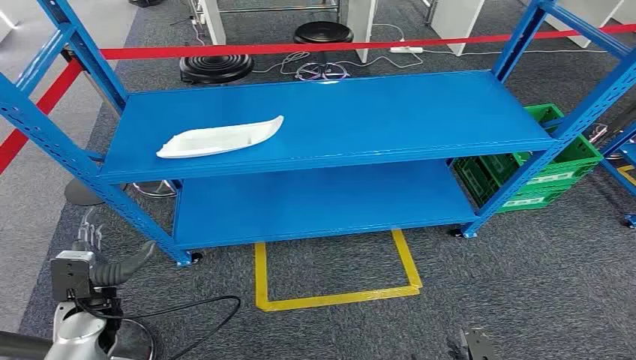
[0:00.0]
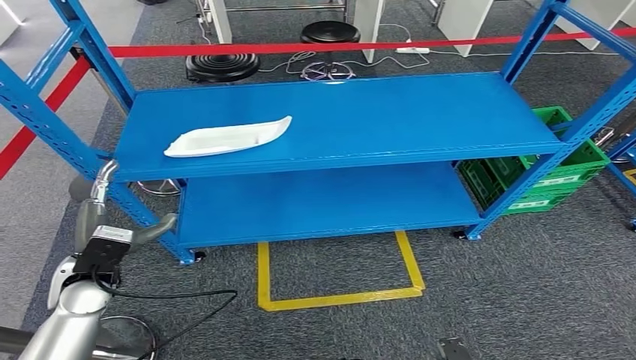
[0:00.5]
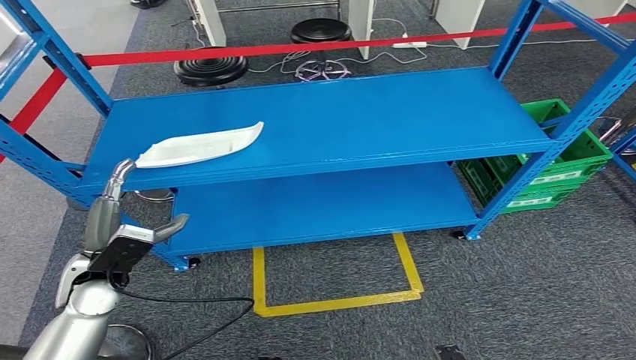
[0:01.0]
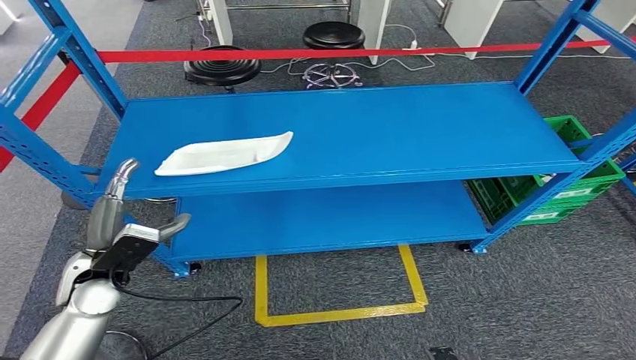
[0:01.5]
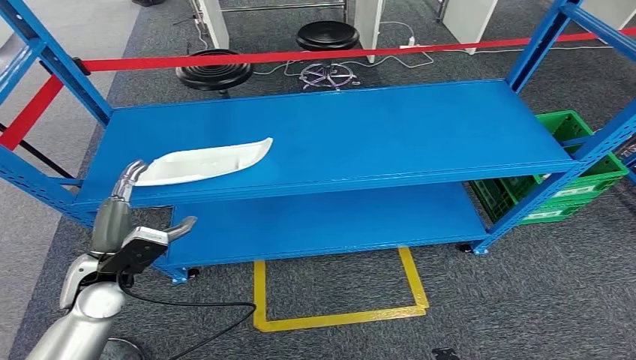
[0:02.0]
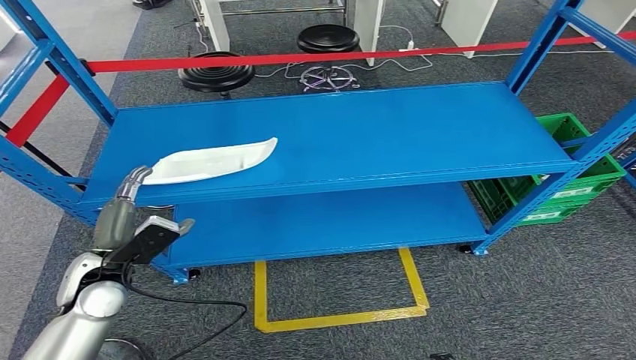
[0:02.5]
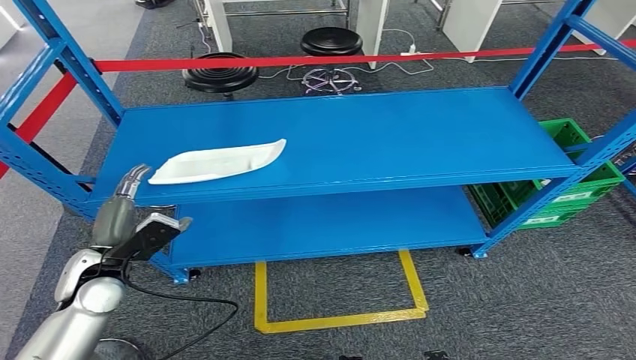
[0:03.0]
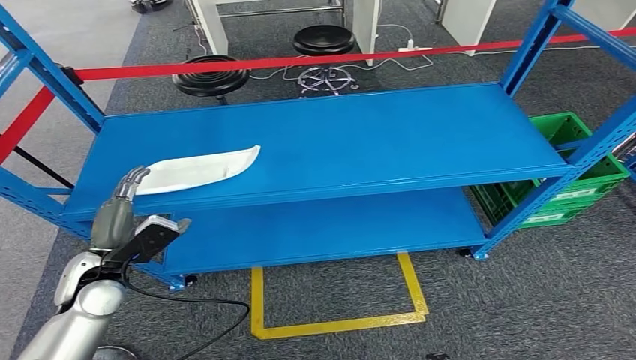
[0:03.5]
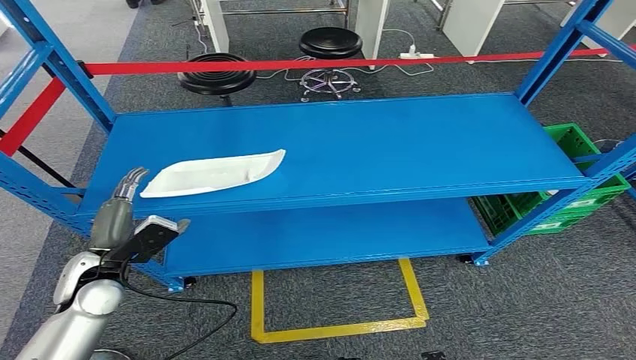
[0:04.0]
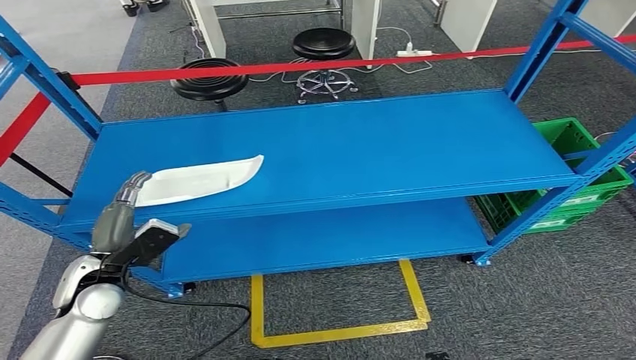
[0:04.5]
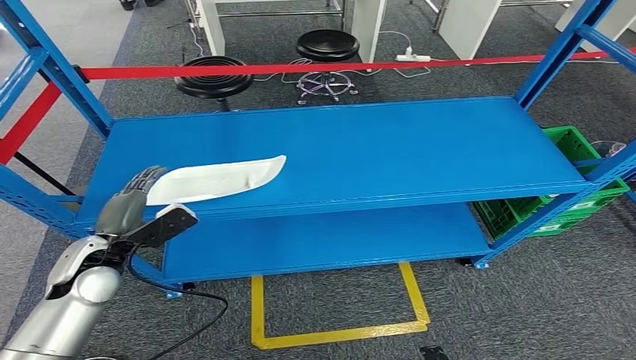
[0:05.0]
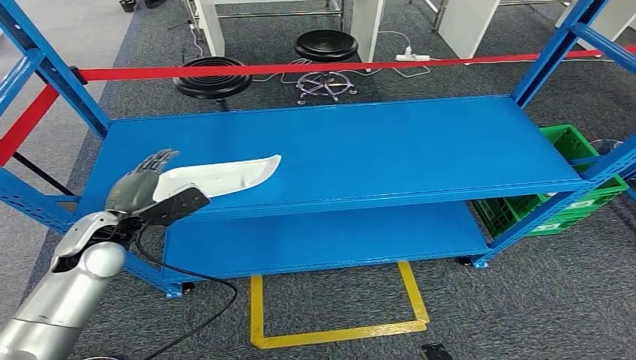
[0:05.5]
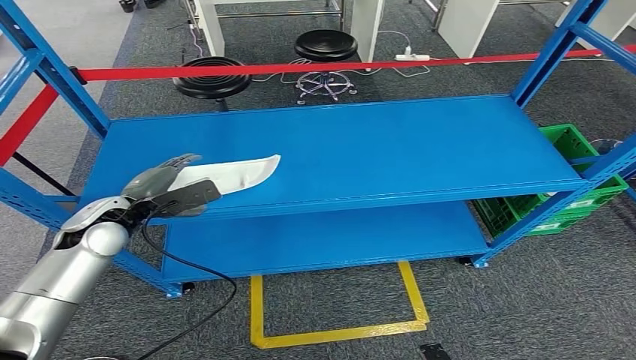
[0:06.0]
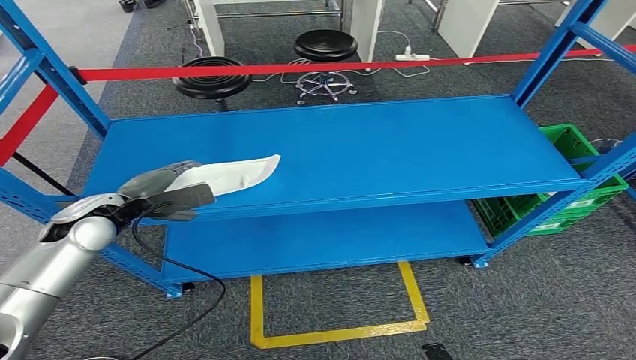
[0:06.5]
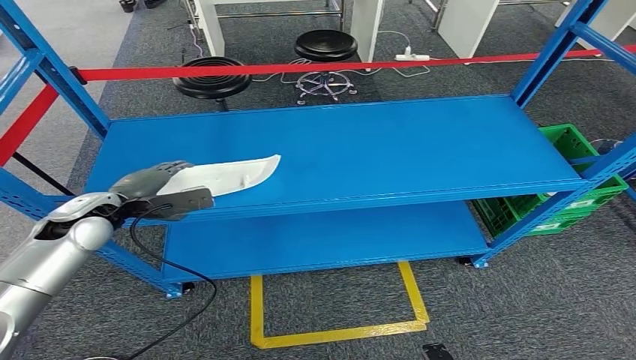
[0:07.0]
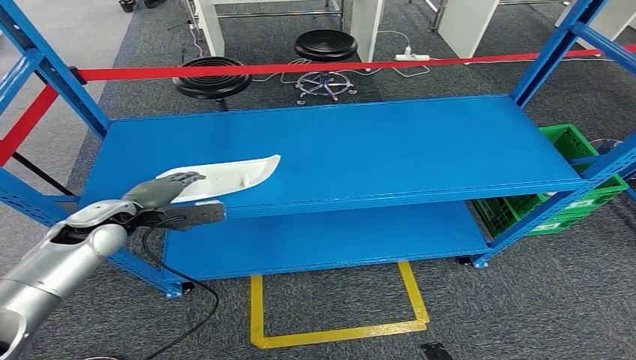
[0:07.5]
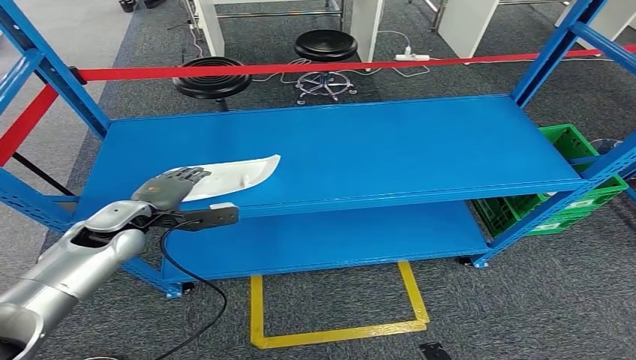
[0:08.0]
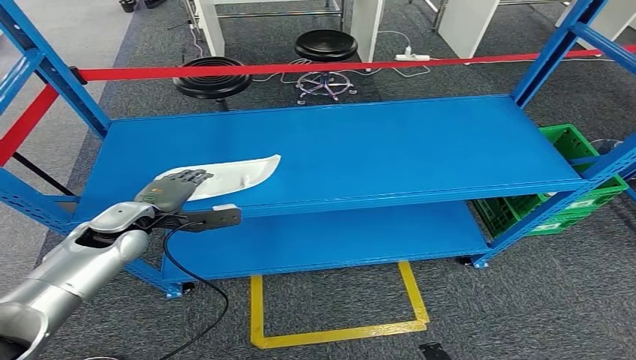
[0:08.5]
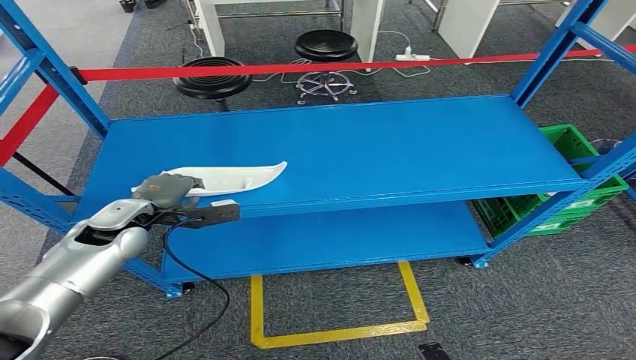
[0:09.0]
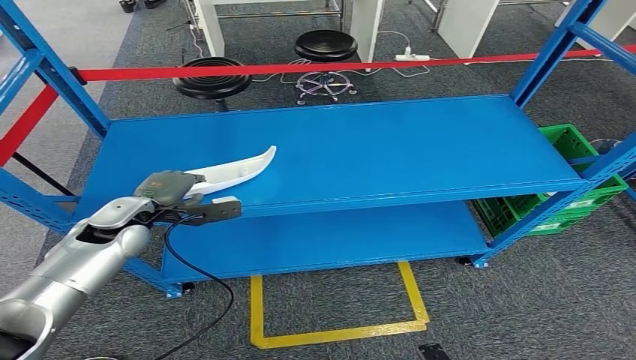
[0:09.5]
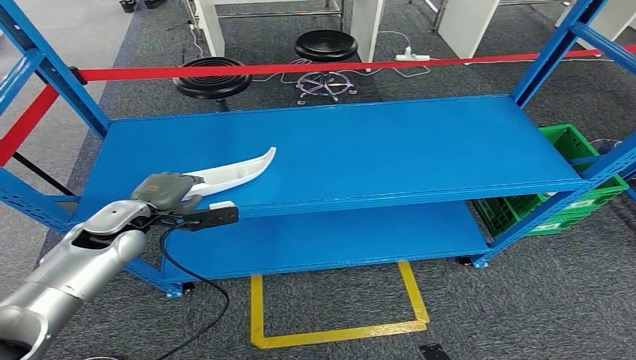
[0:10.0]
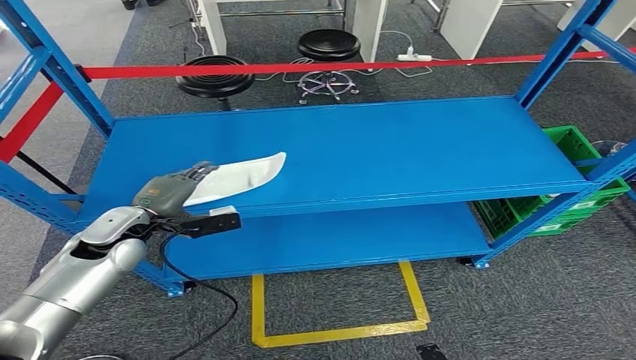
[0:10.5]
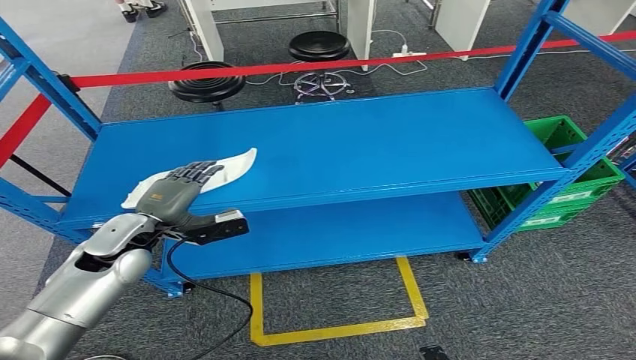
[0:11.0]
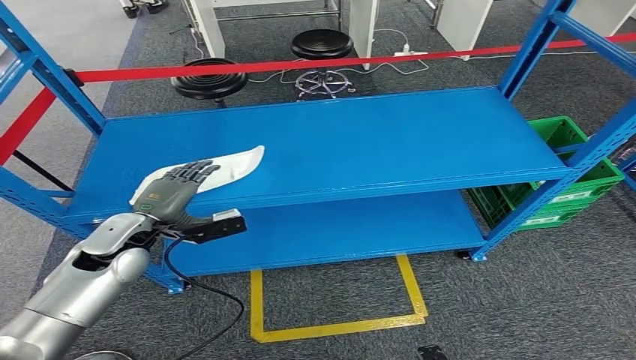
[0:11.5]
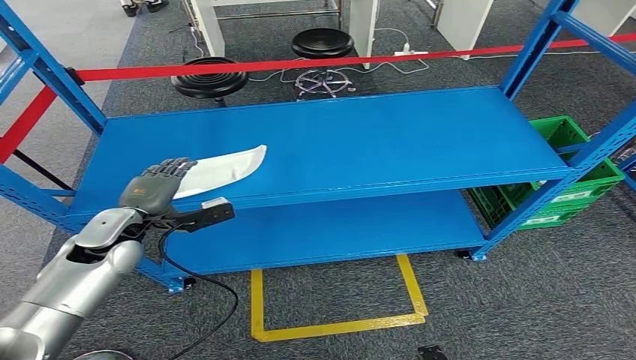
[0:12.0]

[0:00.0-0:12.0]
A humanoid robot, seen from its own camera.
0:08.0 to 0:10.0: The hands move only a little.

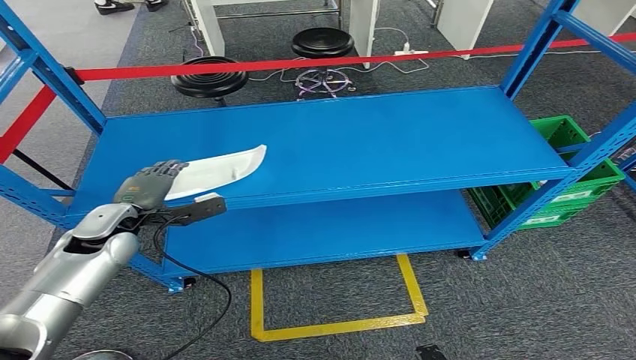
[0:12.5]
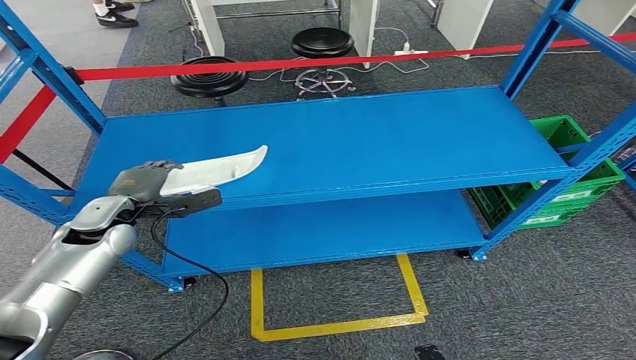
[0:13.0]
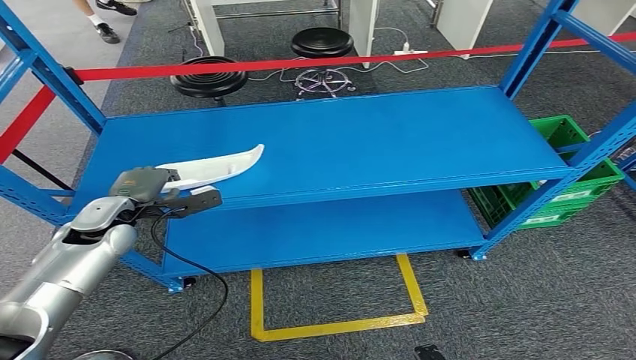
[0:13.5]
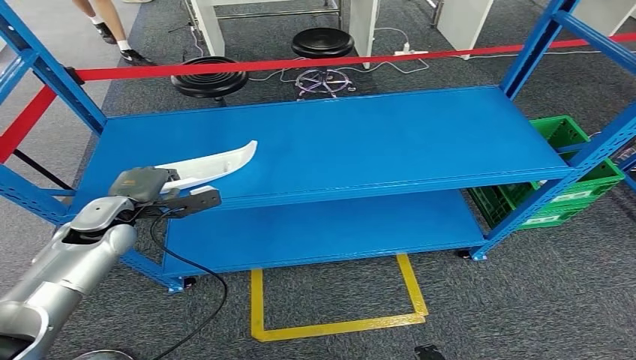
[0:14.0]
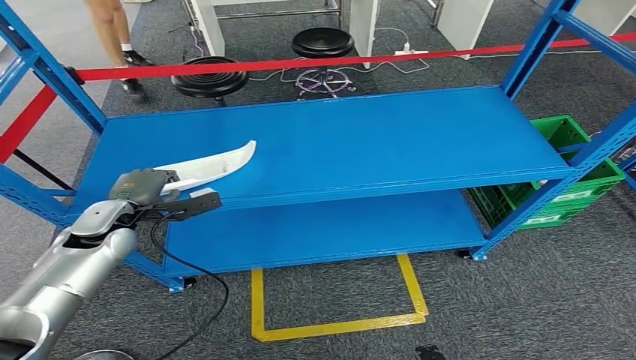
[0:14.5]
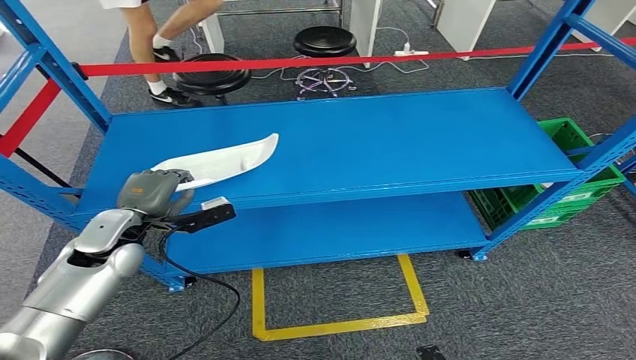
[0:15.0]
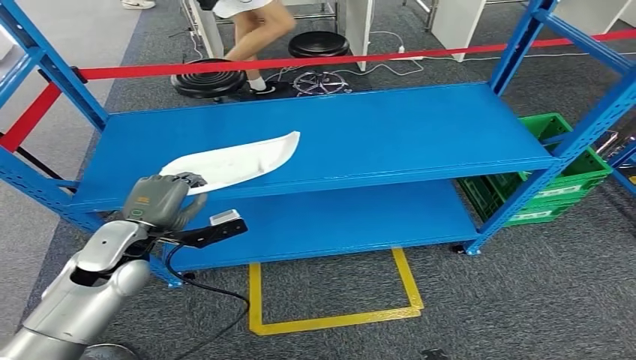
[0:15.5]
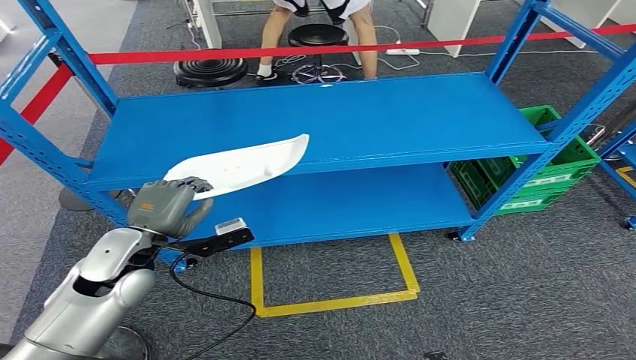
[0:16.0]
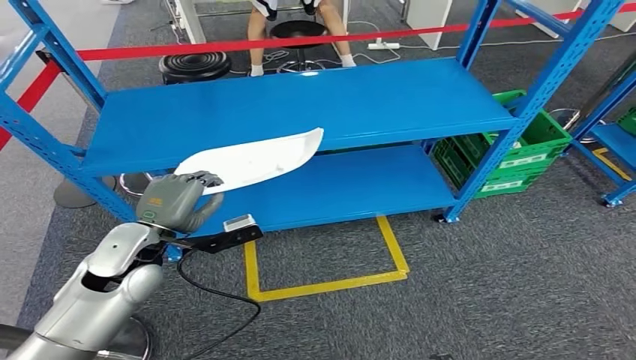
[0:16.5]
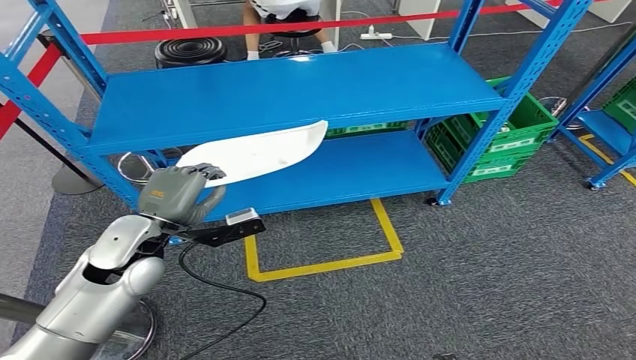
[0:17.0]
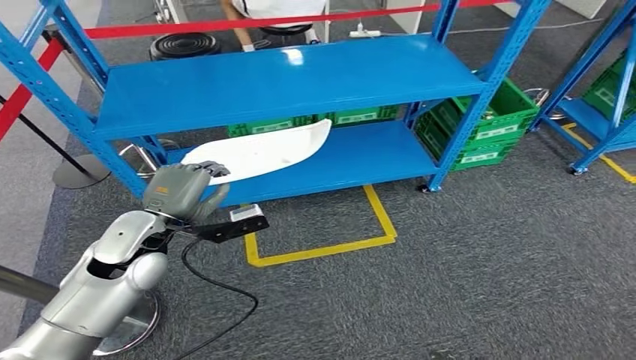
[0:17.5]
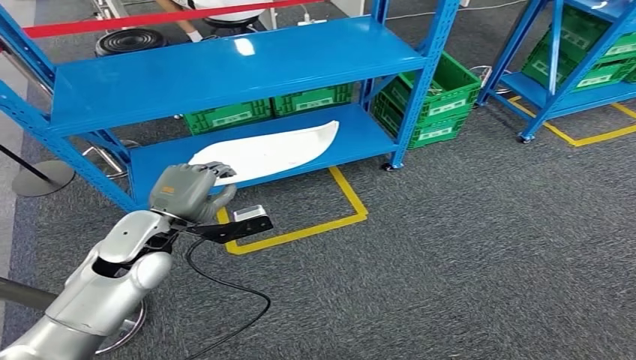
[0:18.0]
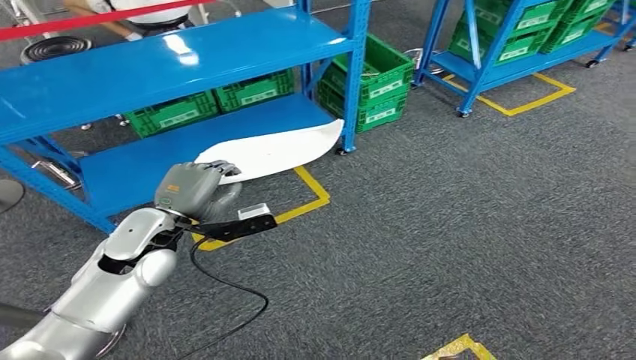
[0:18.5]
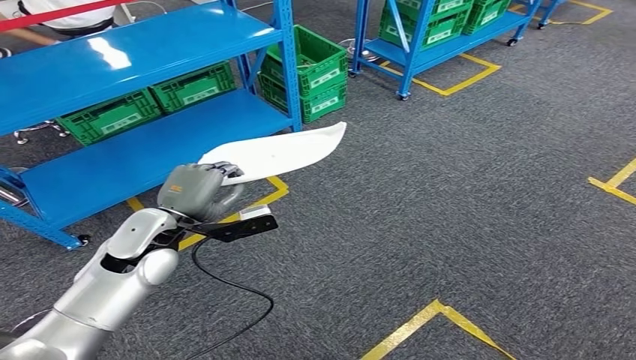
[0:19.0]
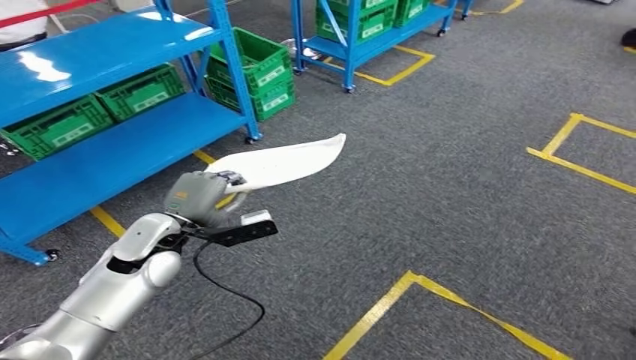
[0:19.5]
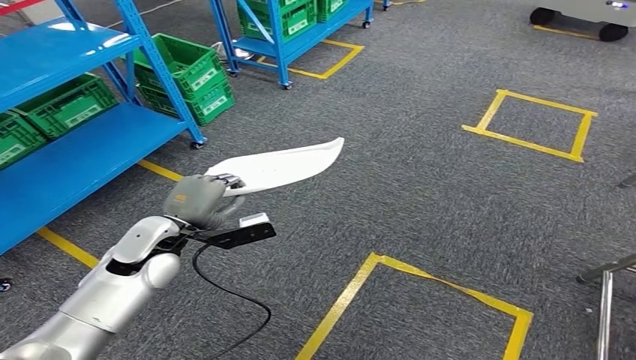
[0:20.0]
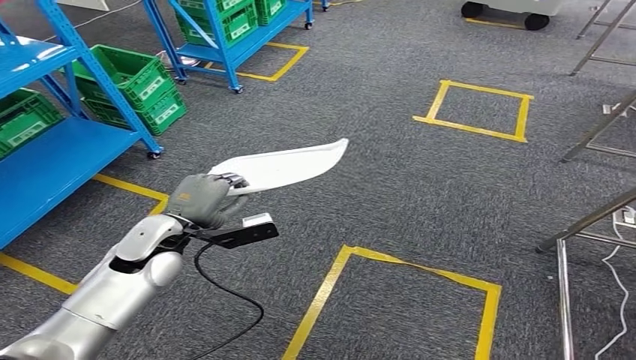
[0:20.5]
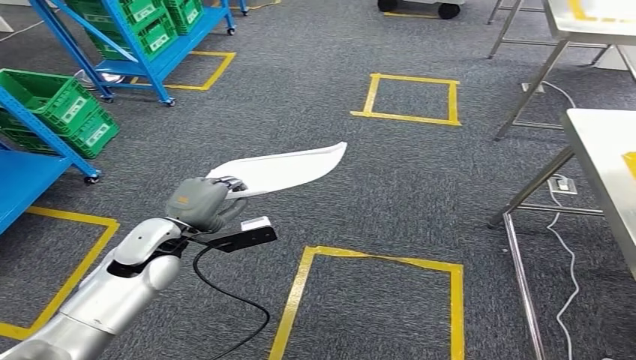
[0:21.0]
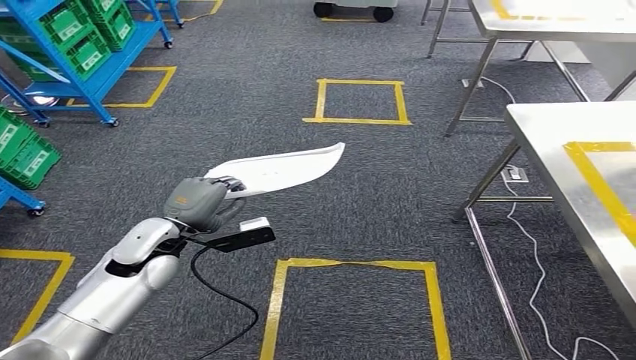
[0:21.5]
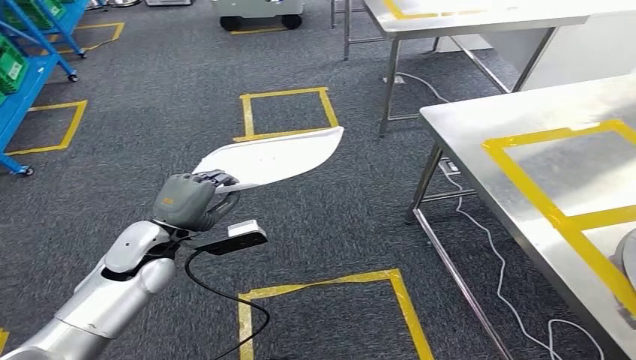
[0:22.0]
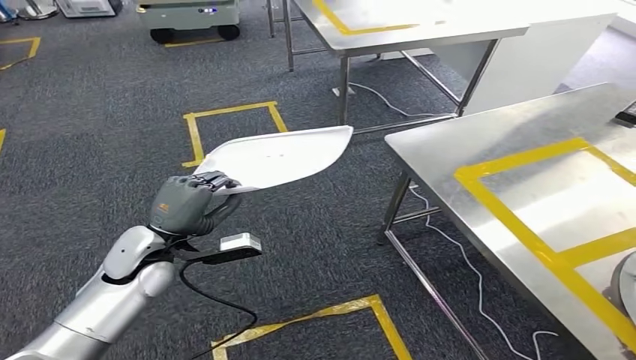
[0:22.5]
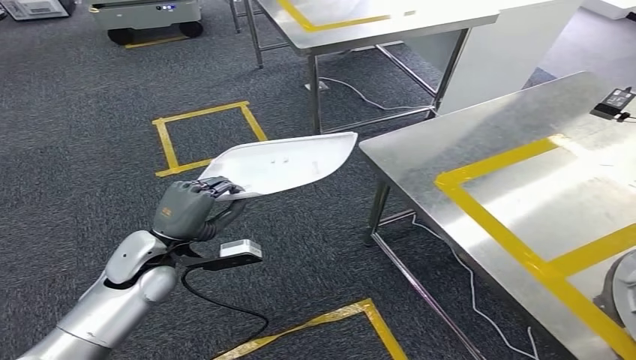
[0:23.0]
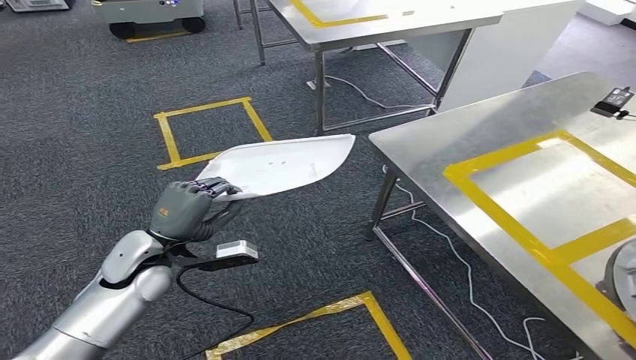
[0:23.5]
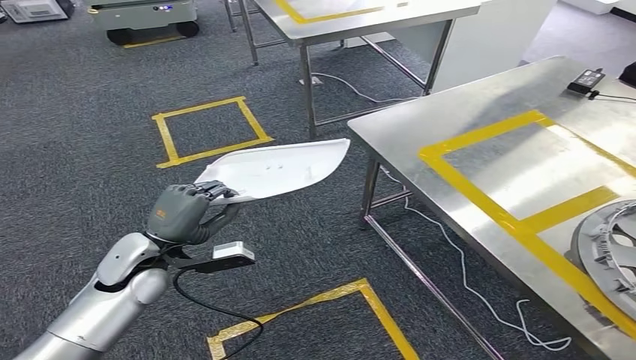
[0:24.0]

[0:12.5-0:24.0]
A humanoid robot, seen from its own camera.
Step, 0:12.5 to 0:16.5: Pick up the small component from the shelf.
0:12.5 to 0:14.5: The hands make only small movements.
